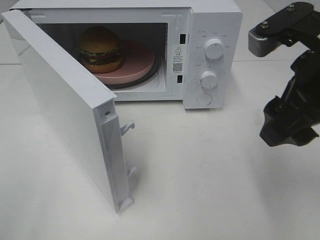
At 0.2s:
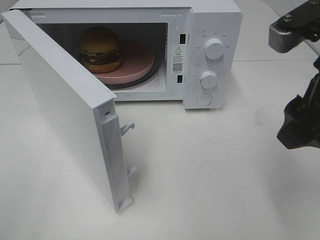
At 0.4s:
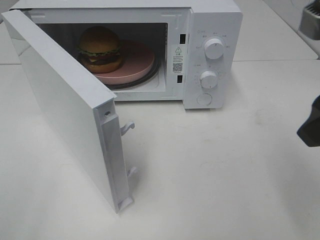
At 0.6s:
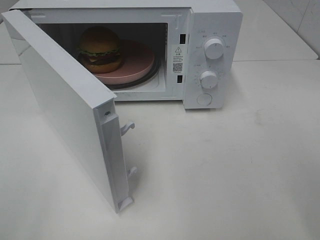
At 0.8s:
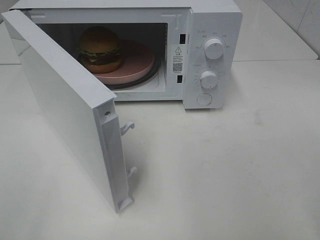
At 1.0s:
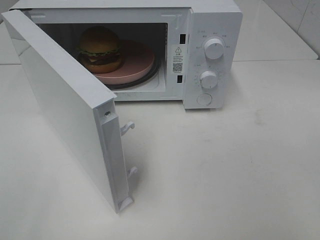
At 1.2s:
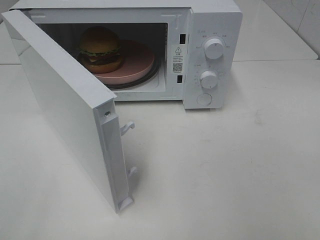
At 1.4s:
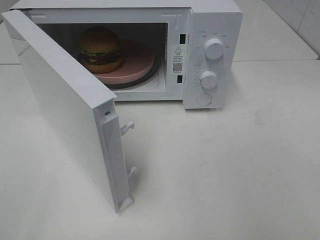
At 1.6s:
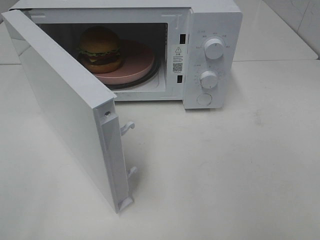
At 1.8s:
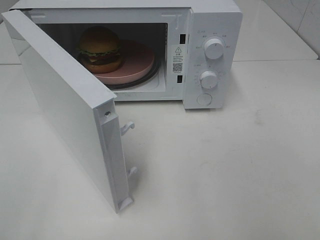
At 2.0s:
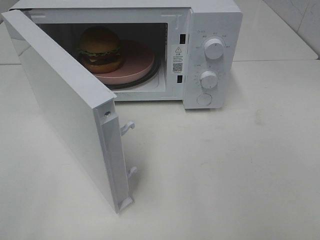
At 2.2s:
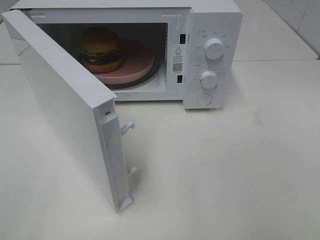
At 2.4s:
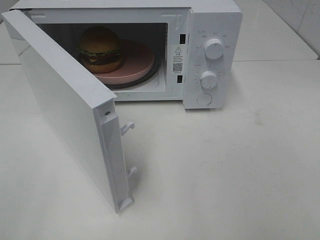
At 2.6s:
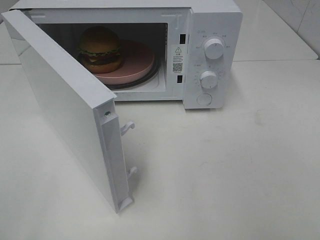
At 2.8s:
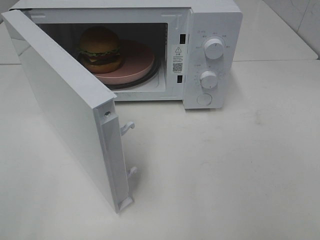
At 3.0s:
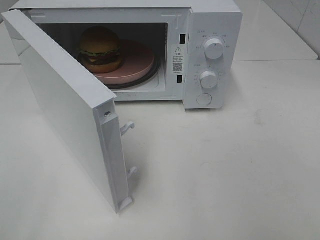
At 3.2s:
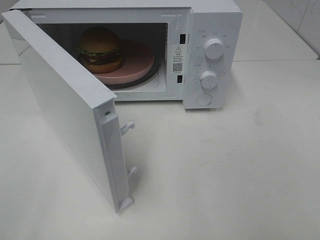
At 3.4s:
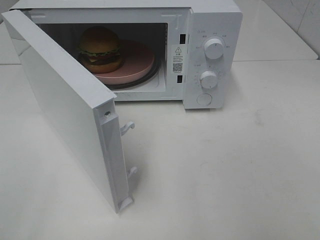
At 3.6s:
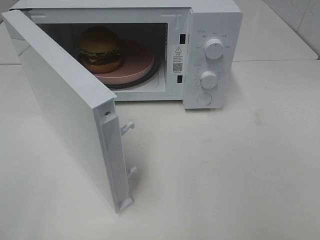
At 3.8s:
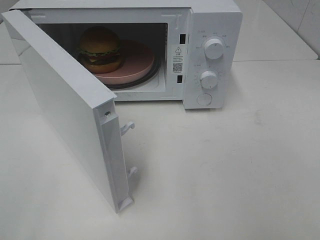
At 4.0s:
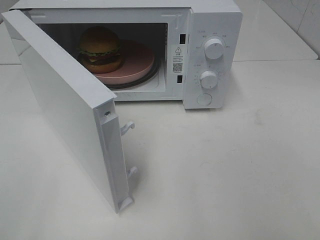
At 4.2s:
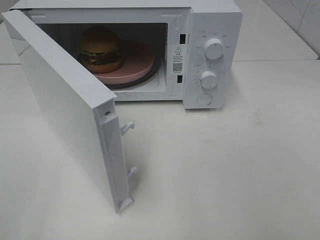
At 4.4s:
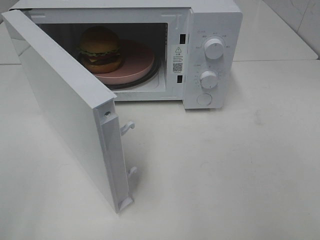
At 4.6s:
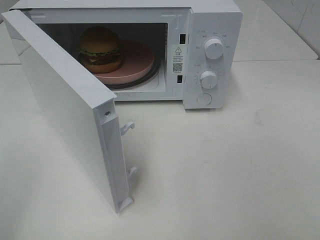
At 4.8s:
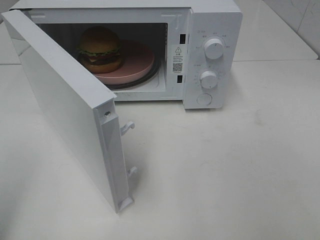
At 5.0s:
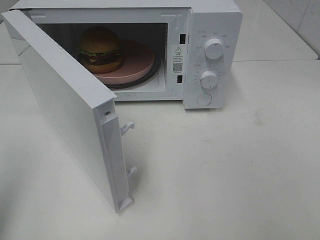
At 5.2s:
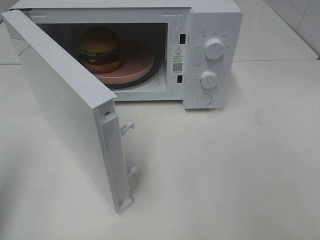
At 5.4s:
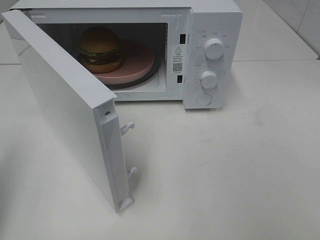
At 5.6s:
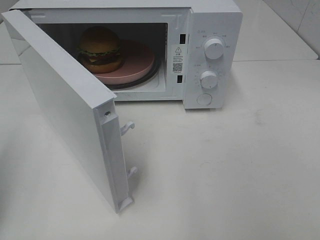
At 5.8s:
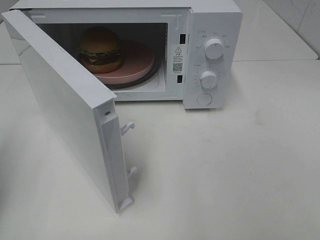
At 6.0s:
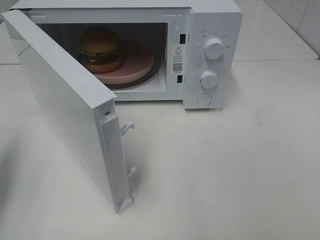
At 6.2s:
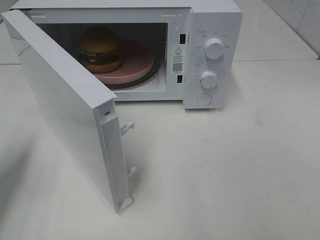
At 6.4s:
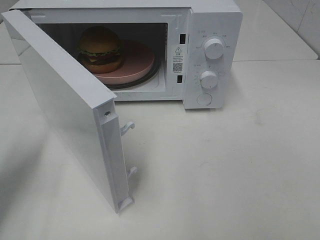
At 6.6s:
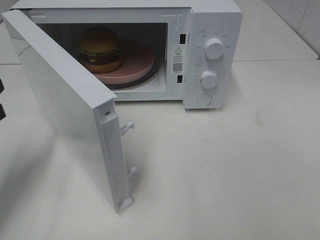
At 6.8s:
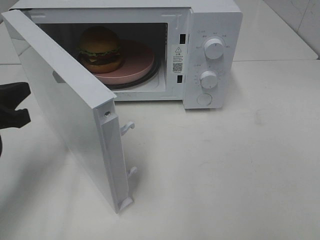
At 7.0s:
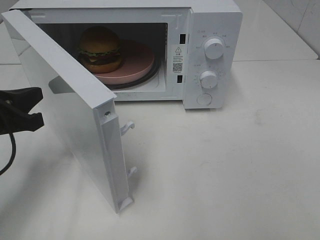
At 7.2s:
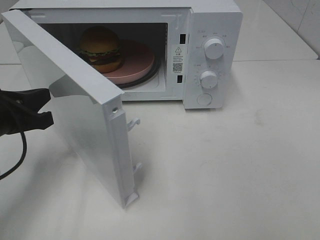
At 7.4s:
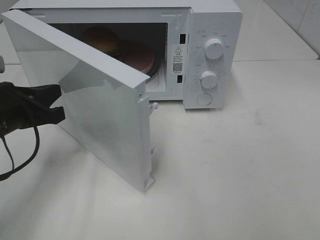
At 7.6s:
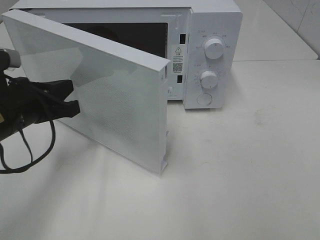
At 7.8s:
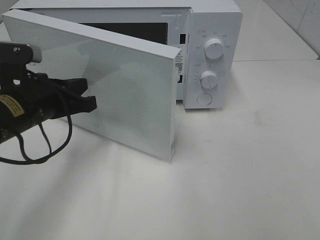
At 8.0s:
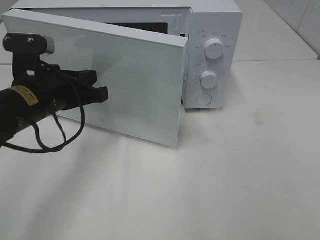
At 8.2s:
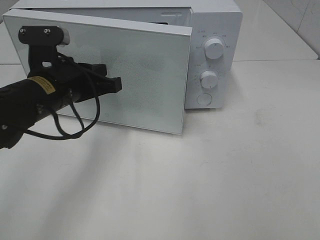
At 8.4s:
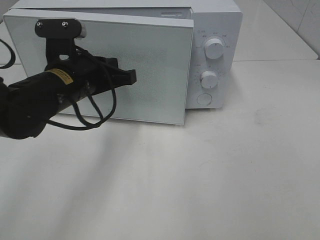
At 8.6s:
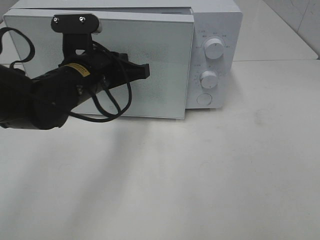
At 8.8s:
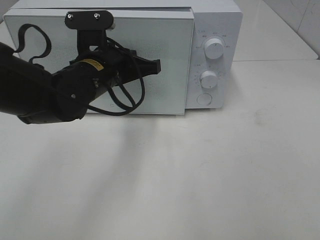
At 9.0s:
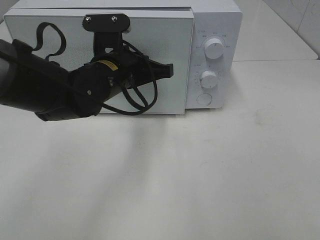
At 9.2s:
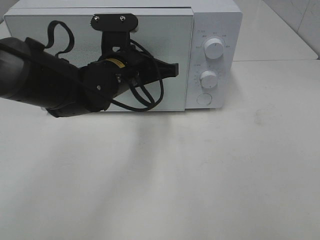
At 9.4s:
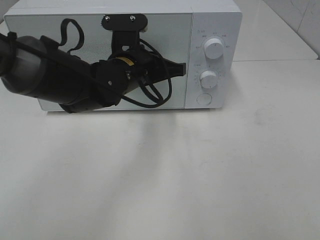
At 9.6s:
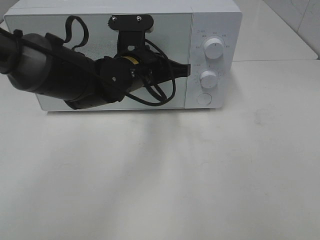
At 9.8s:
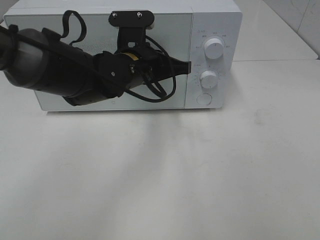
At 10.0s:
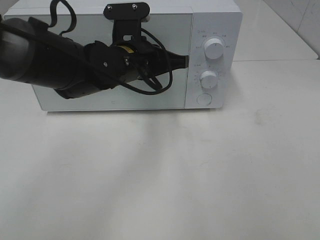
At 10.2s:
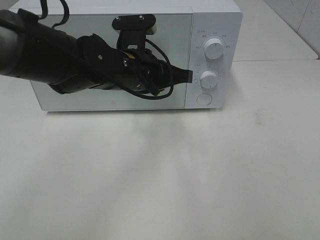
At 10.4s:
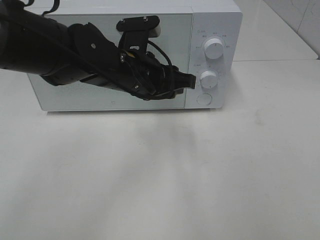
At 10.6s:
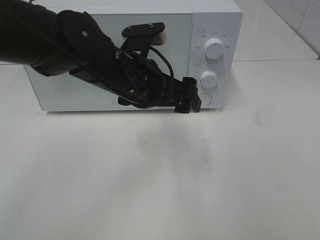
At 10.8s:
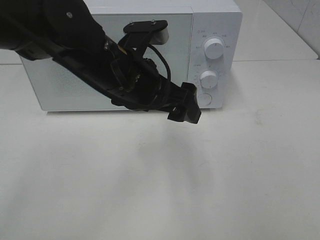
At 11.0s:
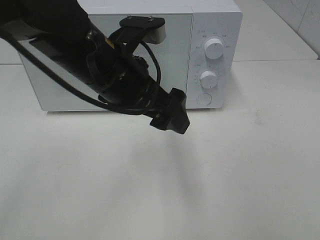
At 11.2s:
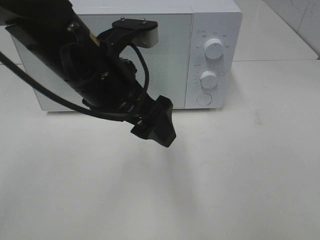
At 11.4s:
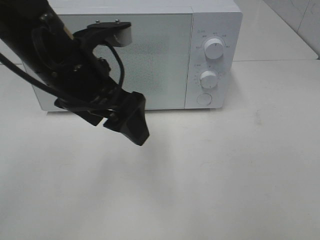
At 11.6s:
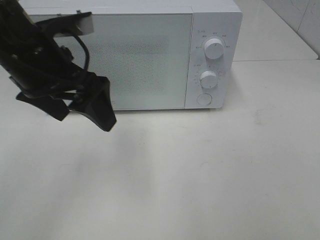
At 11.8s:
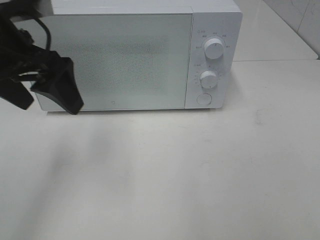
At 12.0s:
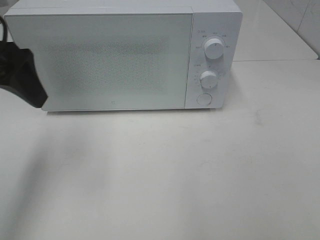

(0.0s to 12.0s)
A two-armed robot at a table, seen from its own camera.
Task of the whole recording: Heat the burger.
Step, 0.0s - 10.4s: Left hand: close the microwave door.
0.0s - 1.6s: The right gripper moves backward and to the right, some 20 cm.
4.4s - 6.0s: The left gripper travels forward and downward by roughly 20 cm, and closes up.
6.0s - 7.6s: The left gripper heads to the right, forward and downward, covering approximately 15 cm.
7.6s - 9.0s: The left gripper heads to the right and forward, covering some 15 cm.
9.0s - 10.4s: The left gripper opens up.
10.4s - 12.0s: The left gripper shifts about 25 cm to the left and upward, and opens.

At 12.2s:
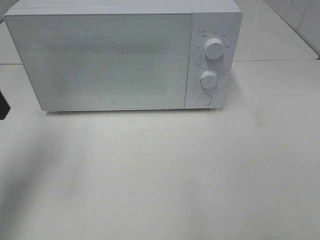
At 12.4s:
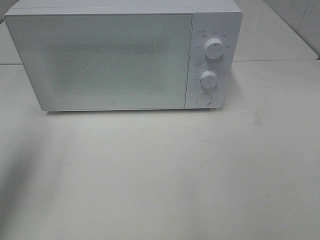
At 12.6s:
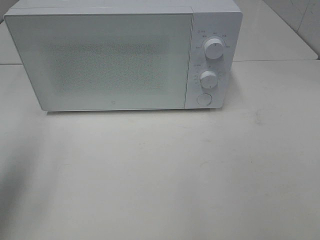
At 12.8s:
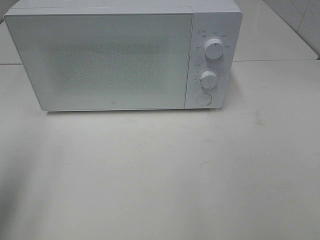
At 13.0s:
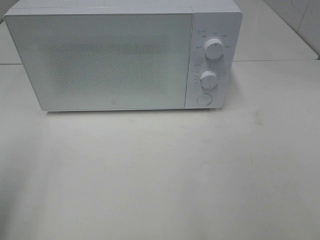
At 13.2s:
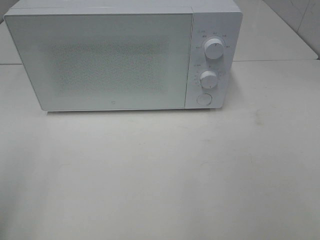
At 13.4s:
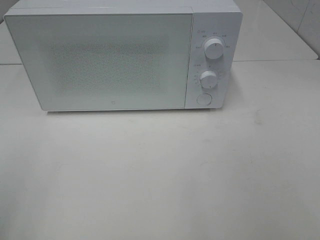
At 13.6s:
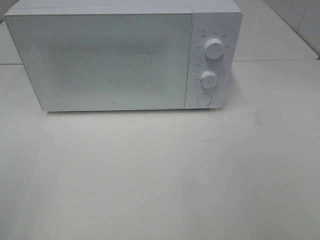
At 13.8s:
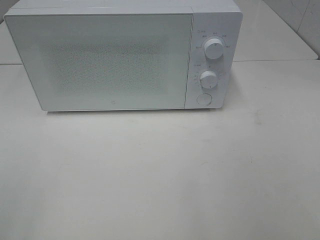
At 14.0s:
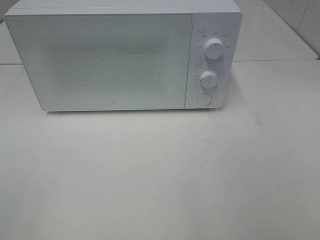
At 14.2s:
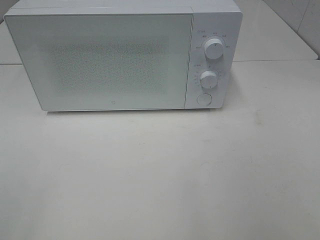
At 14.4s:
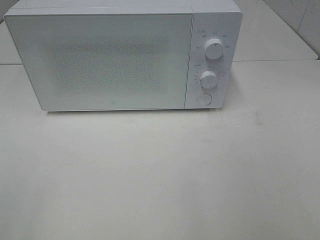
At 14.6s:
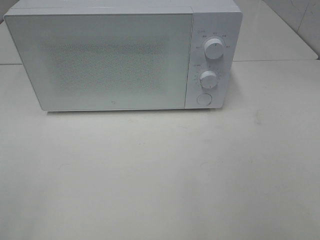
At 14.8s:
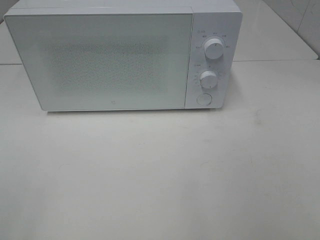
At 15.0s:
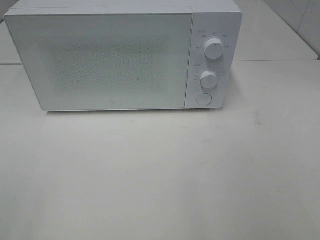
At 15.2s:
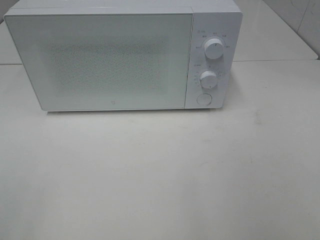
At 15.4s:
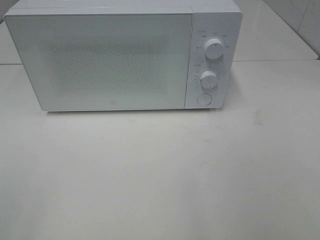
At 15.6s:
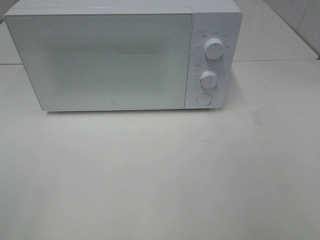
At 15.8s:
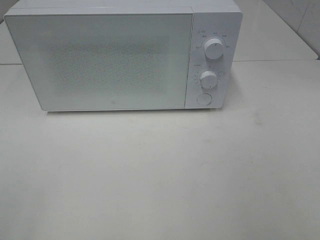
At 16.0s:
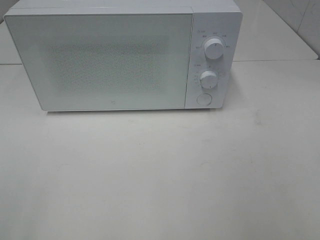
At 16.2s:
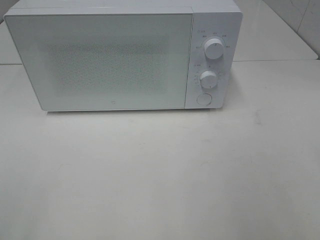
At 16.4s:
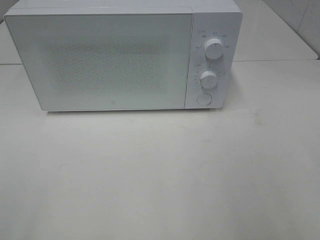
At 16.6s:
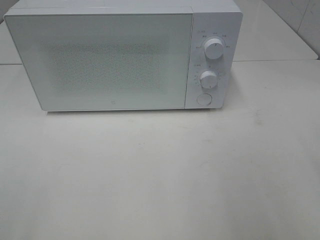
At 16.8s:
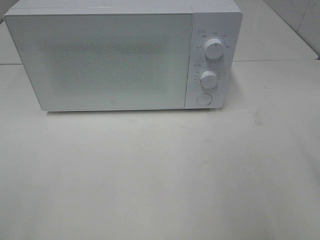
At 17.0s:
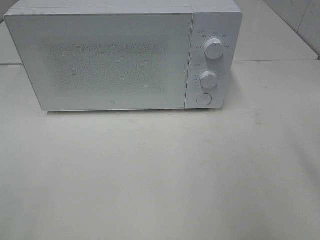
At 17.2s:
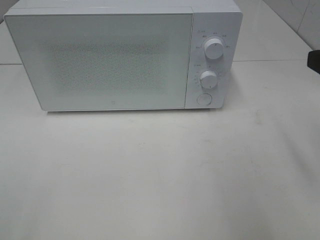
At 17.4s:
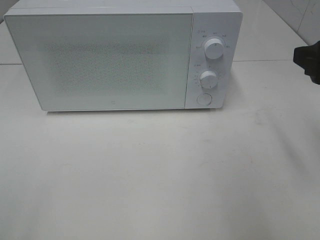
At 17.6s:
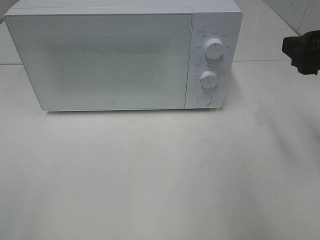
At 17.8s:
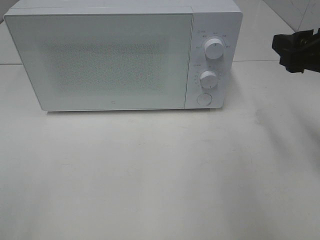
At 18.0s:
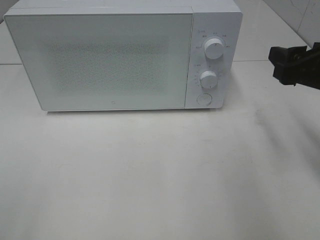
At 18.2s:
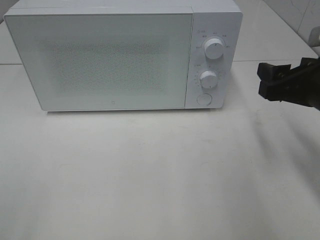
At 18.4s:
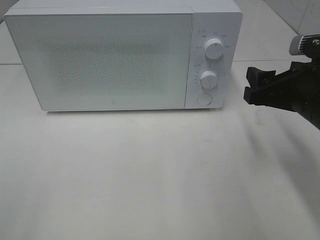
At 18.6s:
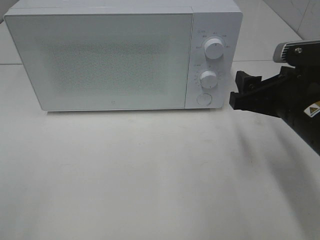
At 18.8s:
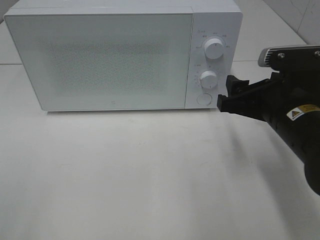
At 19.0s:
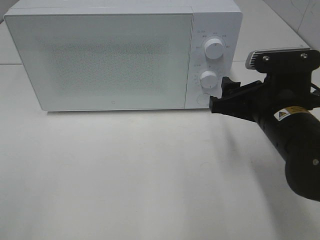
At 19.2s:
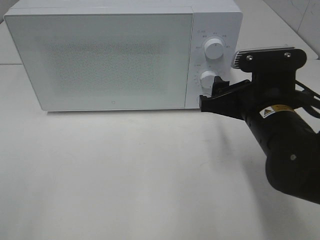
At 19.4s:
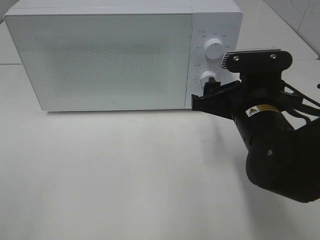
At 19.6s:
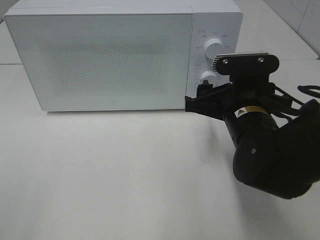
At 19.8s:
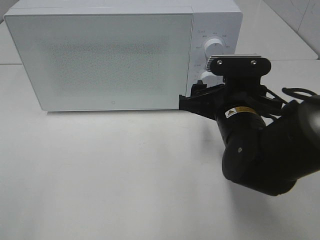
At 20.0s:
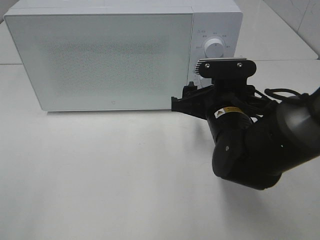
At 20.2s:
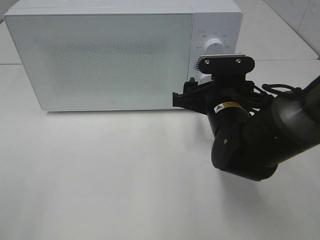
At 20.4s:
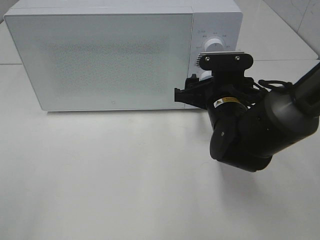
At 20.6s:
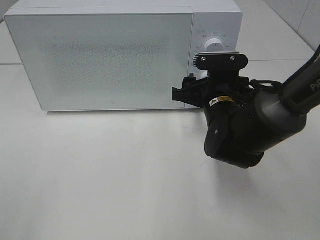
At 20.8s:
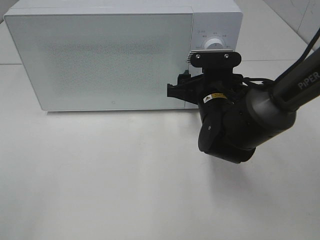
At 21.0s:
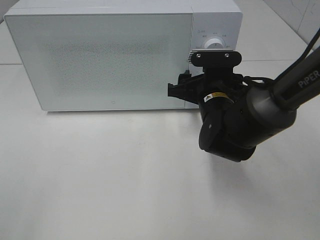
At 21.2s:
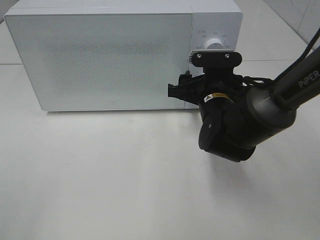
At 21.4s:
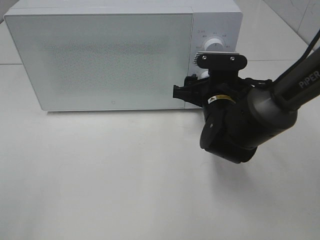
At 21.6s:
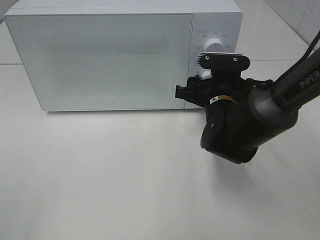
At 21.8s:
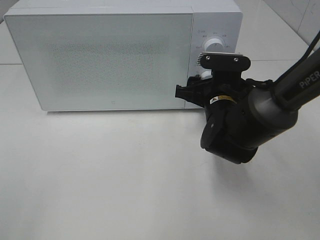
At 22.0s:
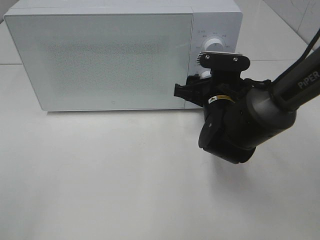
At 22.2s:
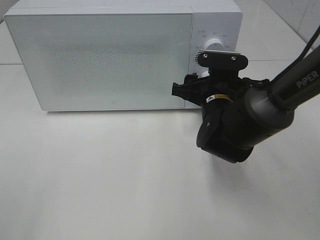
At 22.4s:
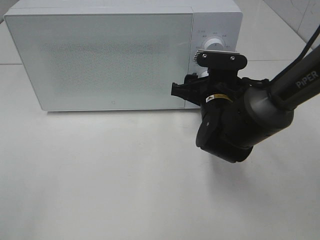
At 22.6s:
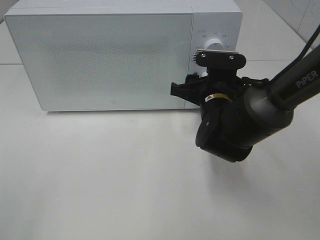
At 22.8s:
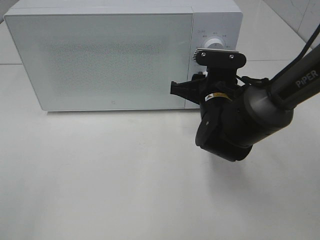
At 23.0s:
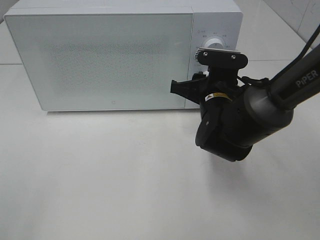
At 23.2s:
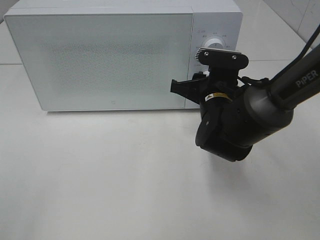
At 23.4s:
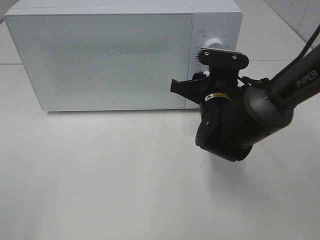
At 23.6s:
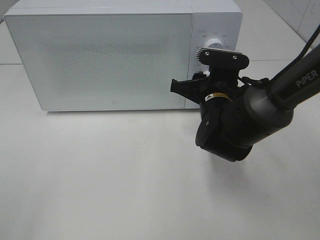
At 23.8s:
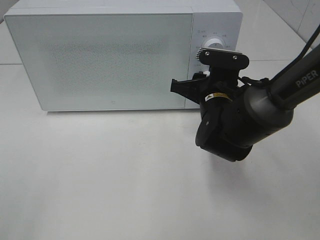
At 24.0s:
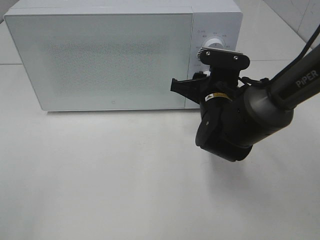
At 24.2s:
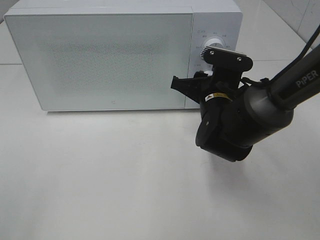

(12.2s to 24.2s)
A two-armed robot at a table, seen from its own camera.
Task of the whole recording: Heat the burger.
12.2s - 13.8s: The left gripper heads backward, covering about 25 cm.
13.8s - 15.2s: The two grippers keep their place.
16.6s - 18.2s: The right gripper heads forward and downward, covering approximately 15 cm.
18.2s - 19.8s: The right gripper moves to the left and downward, roughly 15 cm.
19.8s - 21.2s: The right gripper travels forward by roughly 5 cm.
21.2s - 24.2s: There are only small adjustments of the grippers.
